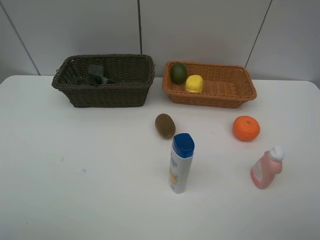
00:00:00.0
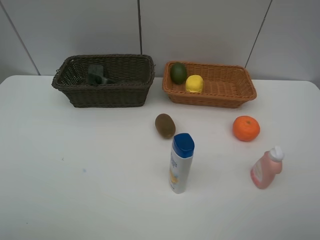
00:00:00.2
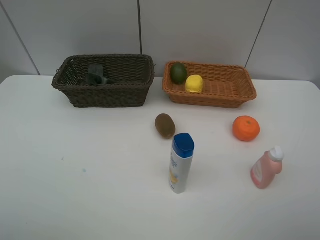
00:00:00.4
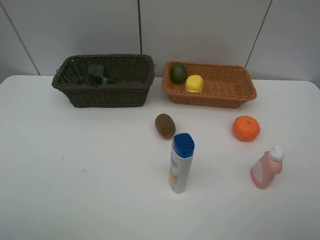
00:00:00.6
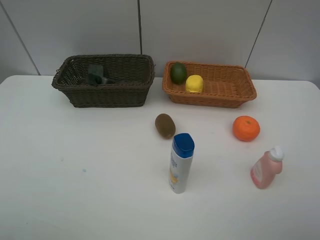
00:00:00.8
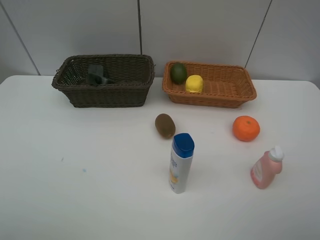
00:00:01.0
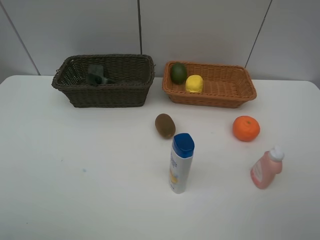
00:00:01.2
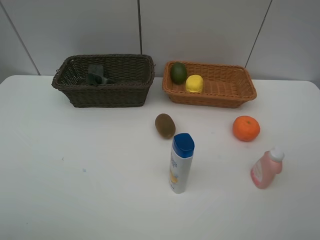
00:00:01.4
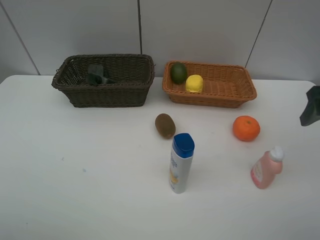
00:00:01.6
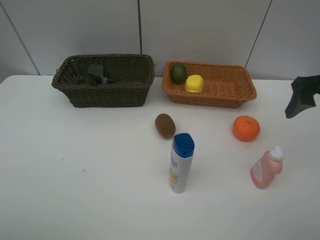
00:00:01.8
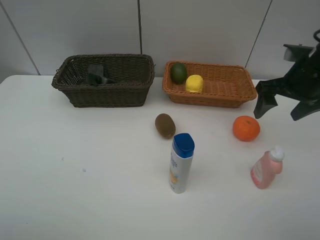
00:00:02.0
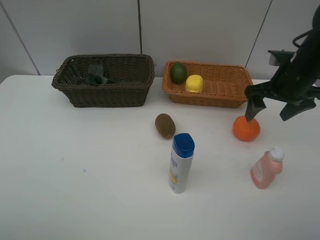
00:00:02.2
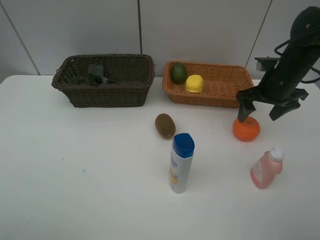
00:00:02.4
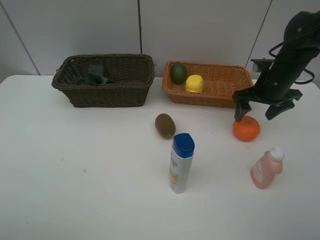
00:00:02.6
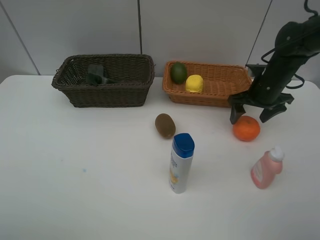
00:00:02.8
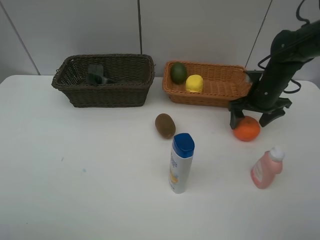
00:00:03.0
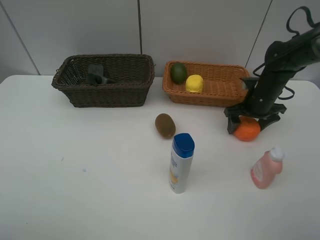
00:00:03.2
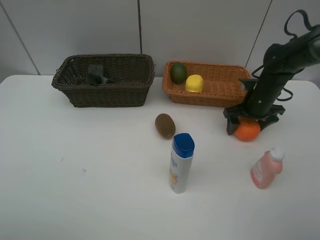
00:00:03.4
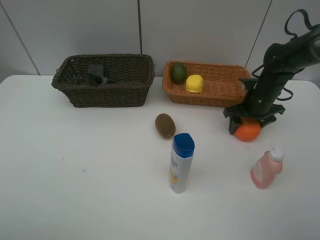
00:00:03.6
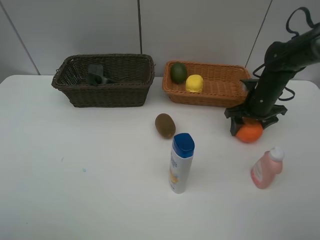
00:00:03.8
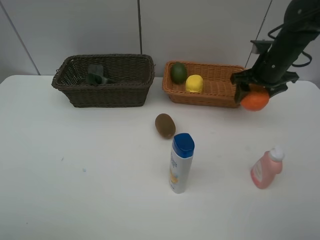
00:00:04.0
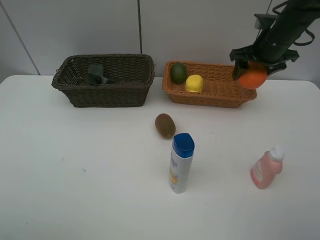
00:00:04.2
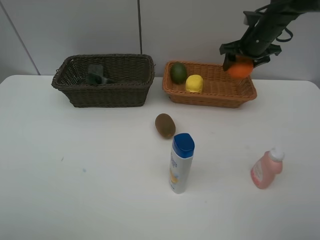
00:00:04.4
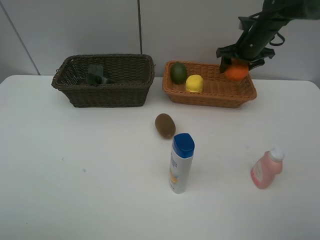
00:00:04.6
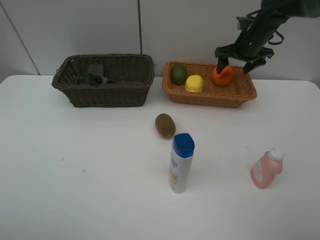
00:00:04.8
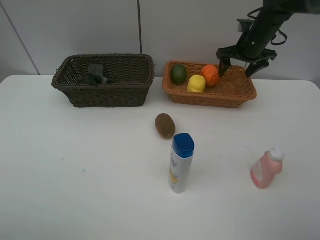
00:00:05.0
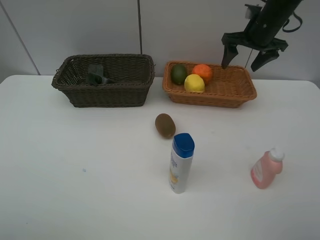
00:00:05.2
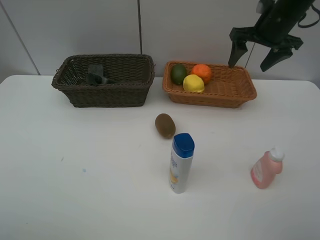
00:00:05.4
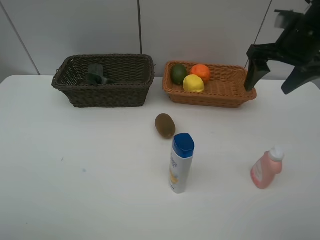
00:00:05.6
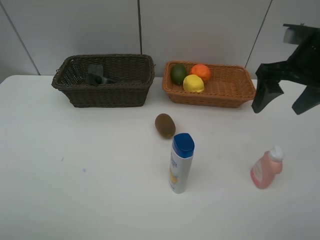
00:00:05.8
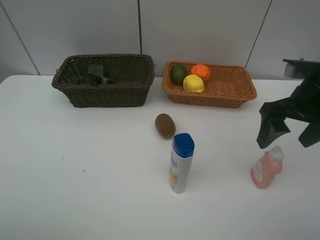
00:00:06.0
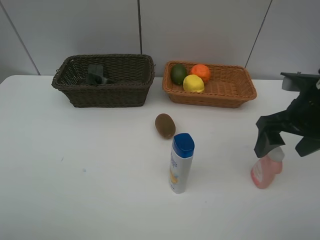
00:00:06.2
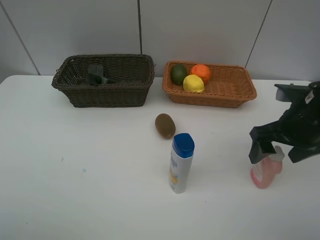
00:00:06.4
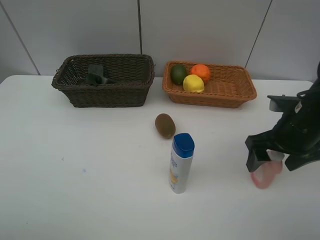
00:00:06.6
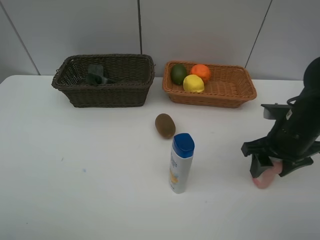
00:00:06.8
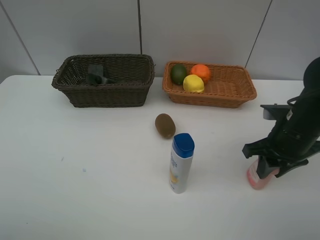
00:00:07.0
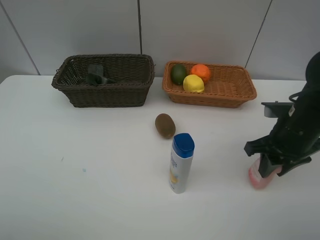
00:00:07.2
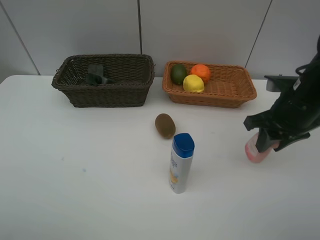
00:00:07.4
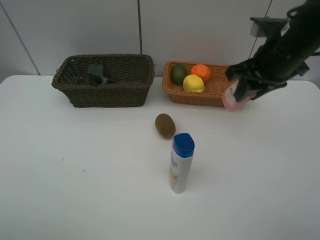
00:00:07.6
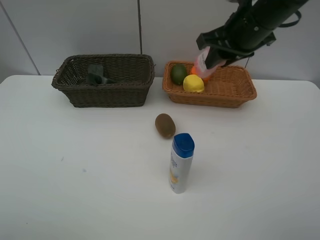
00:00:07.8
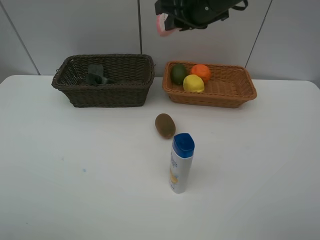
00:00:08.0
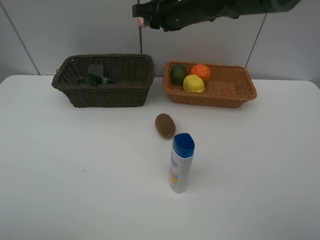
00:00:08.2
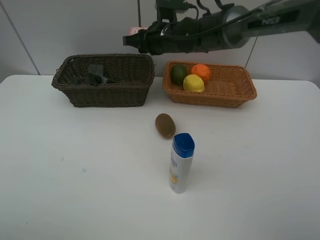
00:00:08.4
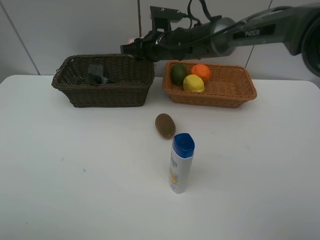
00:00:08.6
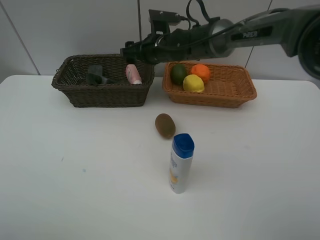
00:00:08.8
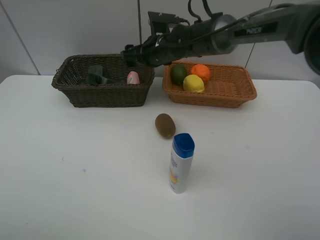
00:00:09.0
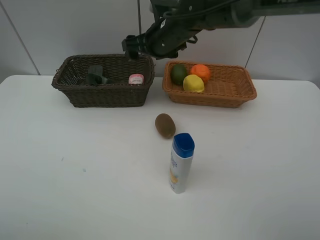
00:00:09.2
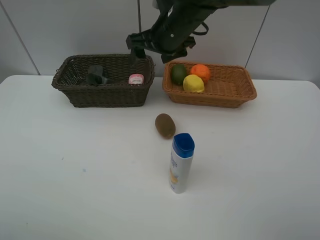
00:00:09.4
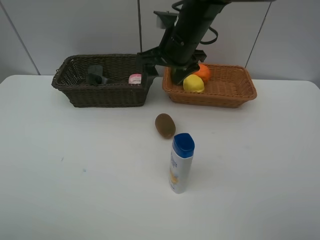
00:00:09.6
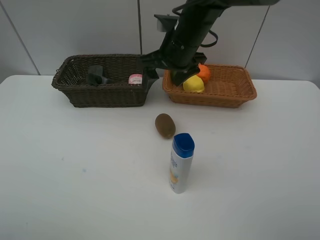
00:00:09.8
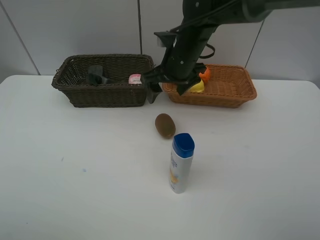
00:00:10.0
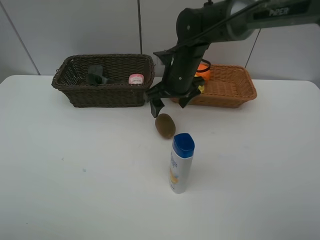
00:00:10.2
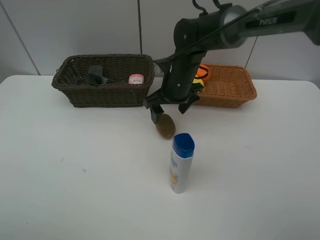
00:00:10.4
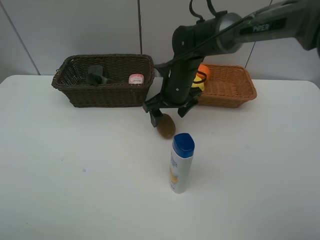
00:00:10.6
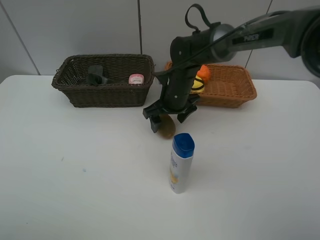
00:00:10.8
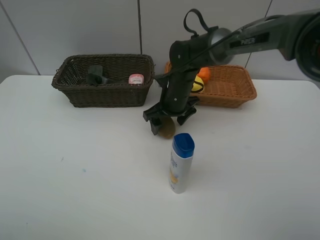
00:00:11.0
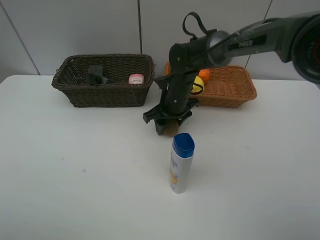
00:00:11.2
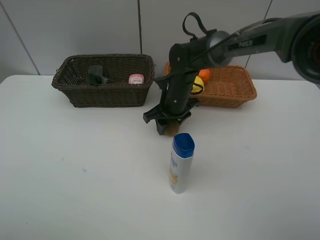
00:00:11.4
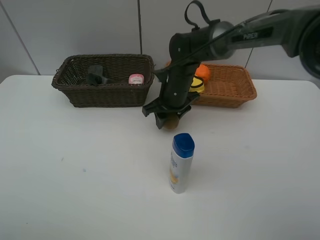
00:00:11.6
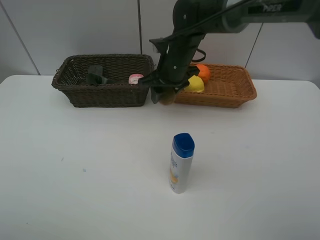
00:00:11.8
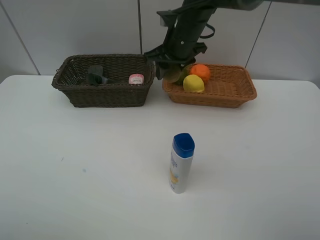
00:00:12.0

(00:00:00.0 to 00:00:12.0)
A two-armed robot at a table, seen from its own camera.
Task of the whole recording: Place multiple objects separately in different baskets.
Step, 00:00:05.0 - 00:00:07.2: Pick up the laundry detergent with right gripper.
Step, 00:00:07.4 - 00:00:08.8: Place the laundry detergent in the dark basket with right gripper.
Step, 00:00:09.0 - 00:00:11.6: Pick up kiwi with right gripper.
00:00:00.0 - 00:00:01.6: The right gripper heads forward, covering about 25 cm.
00:00:01.6 - 00:00:03.0: The right gripper travels forward, downward and to the left by about 20 cm.
00:00:03.0 - 00:00:04.4: The right gripper heads forward and upward, covering some 15 cm.
00:00:04.4 - 00:00:06.0: The right gripper travels backward by some 25 cm.
00:00:06.0 - 00:00:07.6: The right gripper moves forward, some 5 cm, goes downward and returns, approximately 10 cm each way, and closes its fingers.
00:00:07.6 - 00:00:09.0: The right gripper goes roughly 25 cm to the left, forward and downward, and opens up.
00:00:09.0 - 00:00:10.4: The right gripper moves backward, about 5 cm, and moves approximately 5 cm upward and comes back.
00:00:10.4 - 00:00:12.0: The right gripper goes about 10 cm upward, and closes.

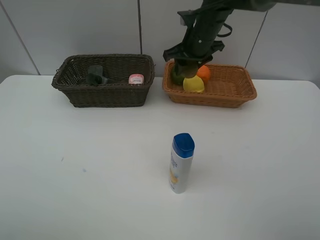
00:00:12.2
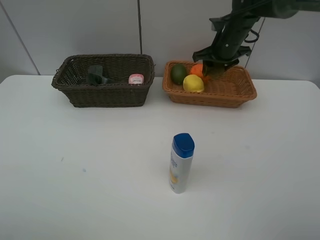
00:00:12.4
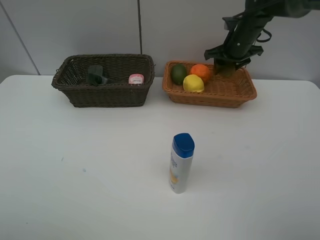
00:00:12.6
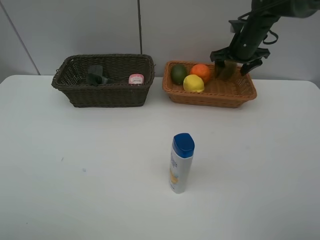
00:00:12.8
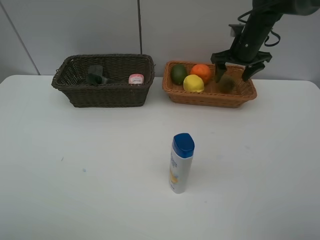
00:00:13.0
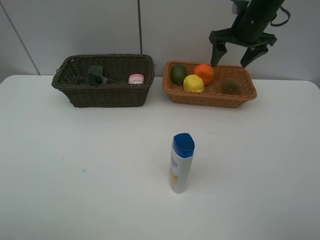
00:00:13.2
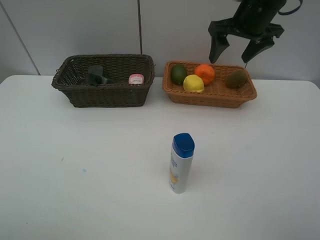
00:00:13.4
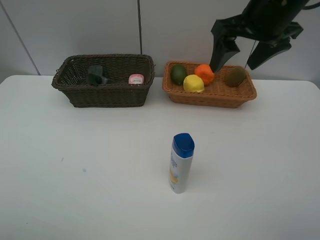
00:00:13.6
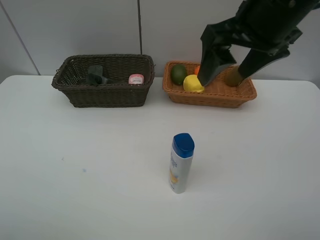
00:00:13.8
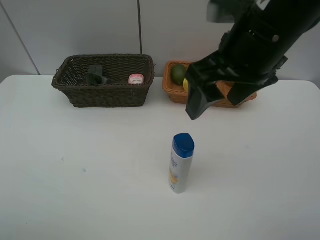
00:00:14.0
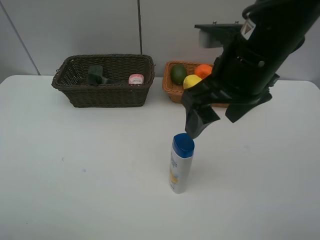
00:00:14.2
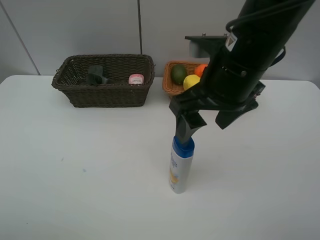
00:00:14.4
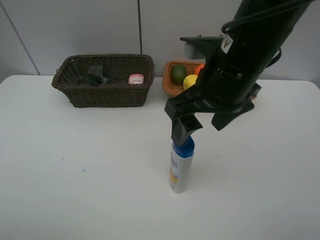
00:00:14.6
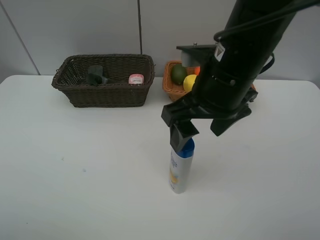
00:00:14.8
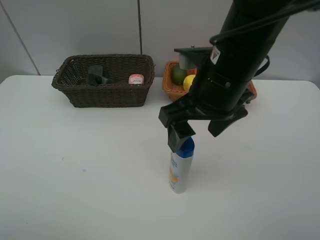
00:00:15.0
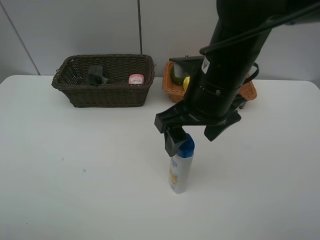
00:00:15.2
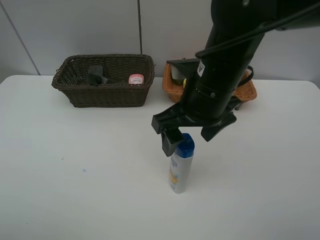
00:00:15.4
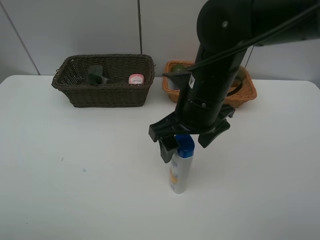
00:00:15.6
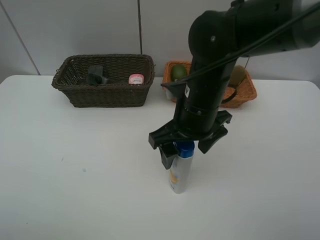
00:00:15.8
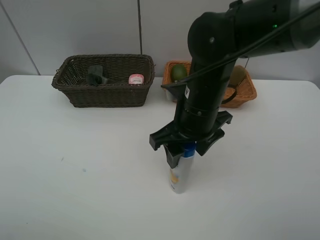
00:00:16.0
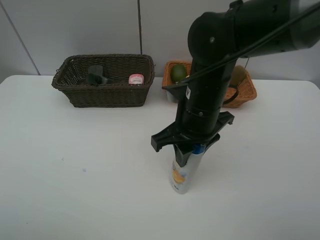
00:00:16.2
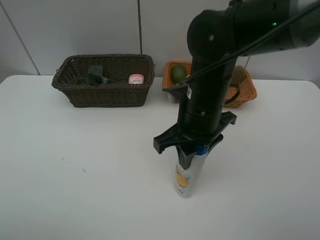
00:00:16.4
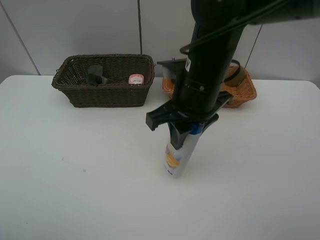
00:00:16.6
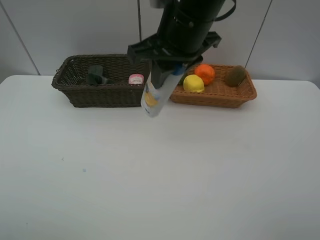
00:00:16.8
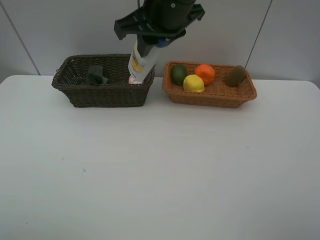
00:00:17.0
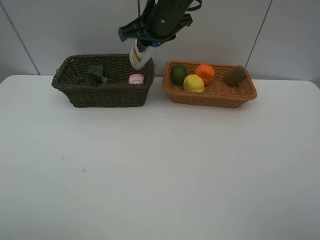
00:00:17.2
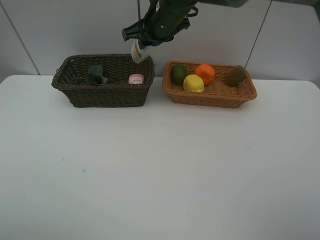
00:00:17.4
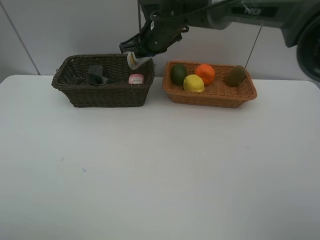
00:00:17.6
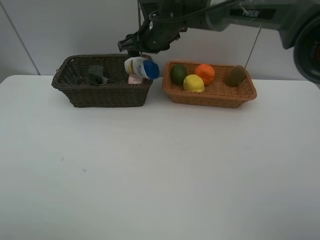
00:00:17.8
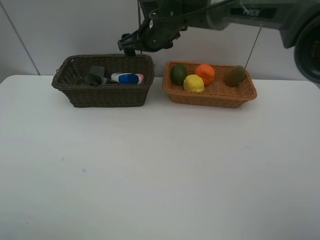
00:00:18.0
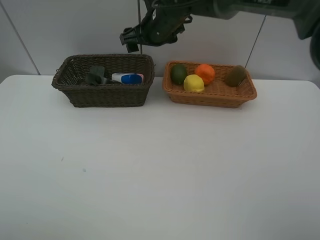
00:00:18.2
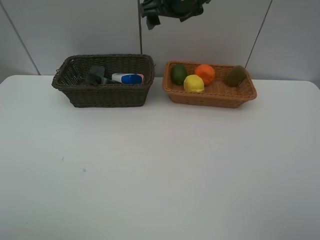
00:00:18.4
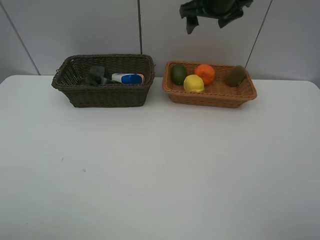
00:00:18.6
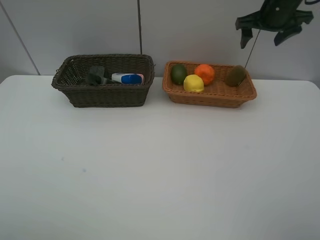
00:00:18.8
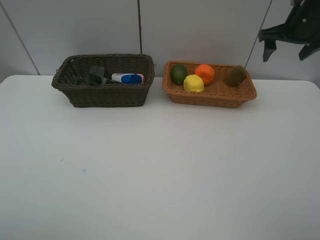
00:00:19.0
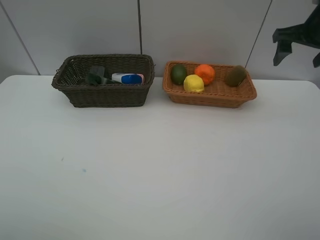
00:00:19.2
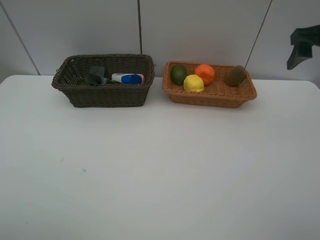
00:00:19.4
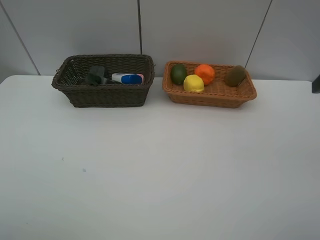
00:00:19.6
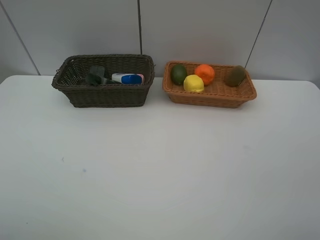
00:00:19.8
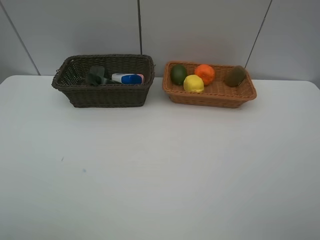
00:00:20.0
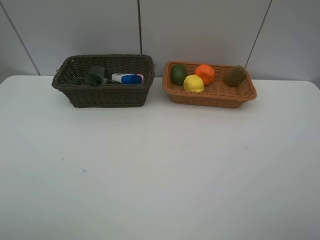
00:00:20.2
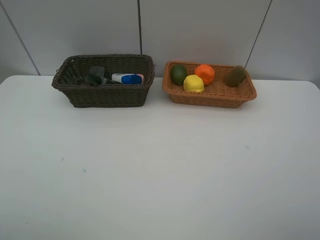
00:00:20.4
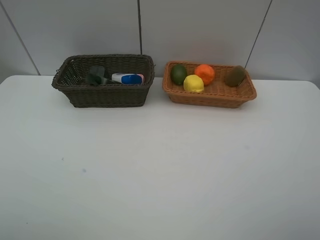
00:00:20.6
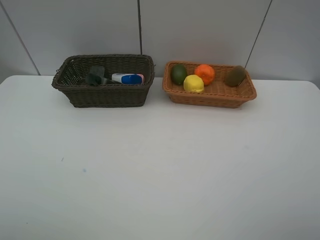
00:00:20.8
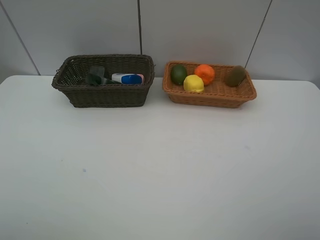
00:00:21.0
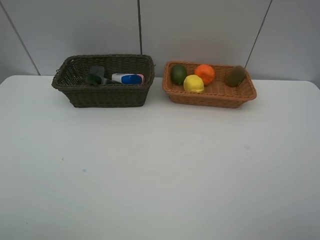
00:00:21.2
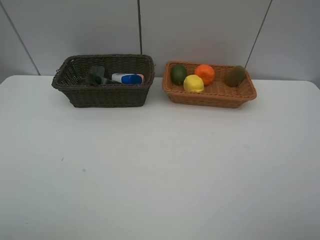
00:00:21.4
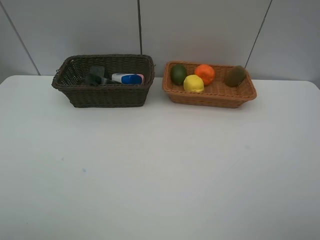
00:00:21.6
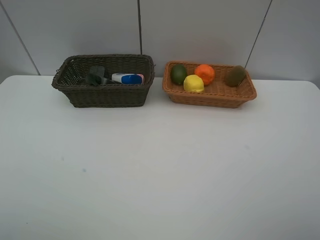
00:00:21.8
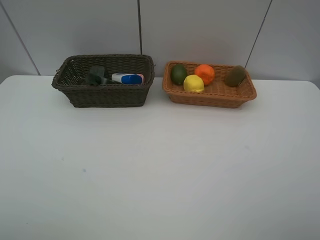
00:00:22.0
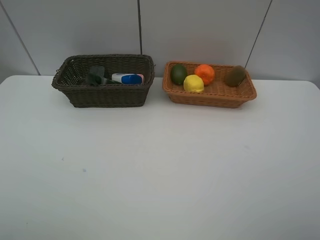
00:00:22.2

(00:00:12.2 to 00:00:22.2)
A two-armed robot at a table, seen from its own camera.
Task of the whole recording: Place multiple objects separately in different baskets.
Step, 00:00:12.2 - 00:00:12.8: Place the kiwi in the light basket with right gripper.
Step, 00:00:13.0 - 00:00:16.6: Pick up the shampoo with right gripper.
Step, 00:00:16.8 - 00:00:17.8: Place the shampoo in the dark basket with right gripper.
00:00:12.2 - 00:00:13.6: The right gripper shifts some 20 cm backward, upward and to the right, and opens.
00:00:13.6 - 00:00:15.0: The right gripper shifts approximately 15 cm backward, to the left and downward.
00:00:15.0 - 00:00:16.4: The right gripper heads downward, covering some 5 cm, and closes.
00:00:16.4 - 00:00:18.0: The right gripper heads forward, covering some 20 cm, and opens.
00:00:18.0 - 00:00:19.4: The right gripper heads to the right and backward, covering roughly 35 cm.
00:00:19.4 - 00:00:20.8: The right gripper moves backward, roughly 30 cm.
00:00:20.8 - 00:00:22.2: Both grippers stay put.
